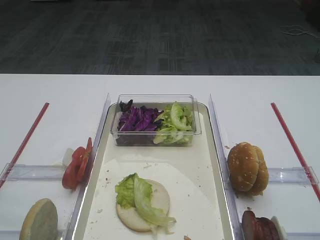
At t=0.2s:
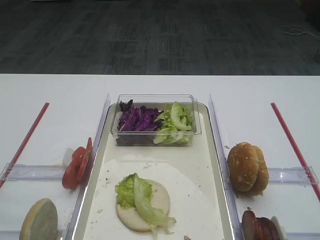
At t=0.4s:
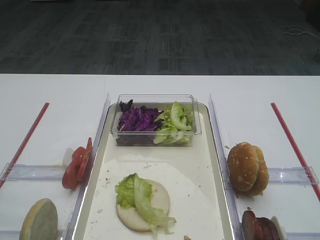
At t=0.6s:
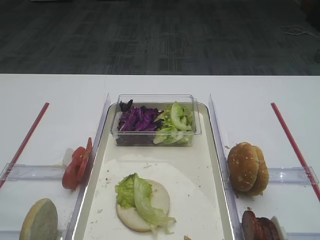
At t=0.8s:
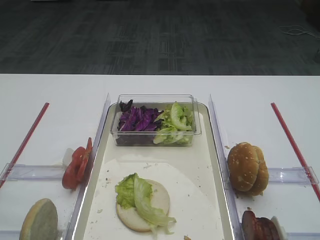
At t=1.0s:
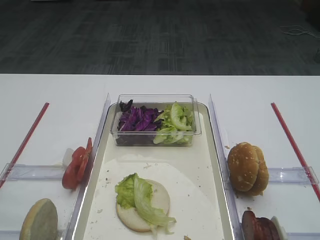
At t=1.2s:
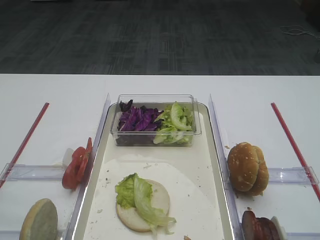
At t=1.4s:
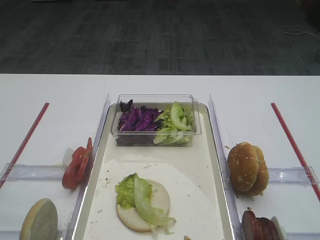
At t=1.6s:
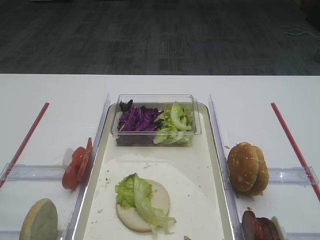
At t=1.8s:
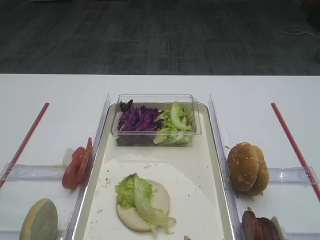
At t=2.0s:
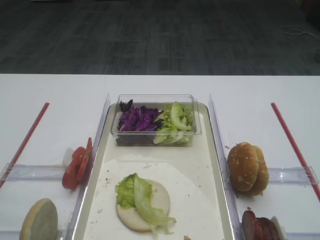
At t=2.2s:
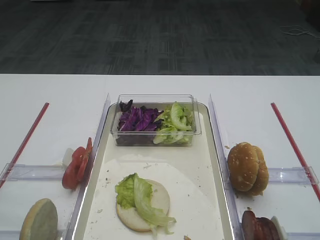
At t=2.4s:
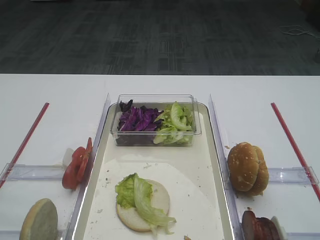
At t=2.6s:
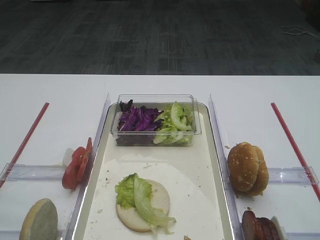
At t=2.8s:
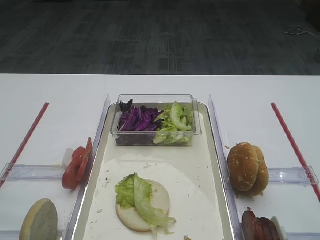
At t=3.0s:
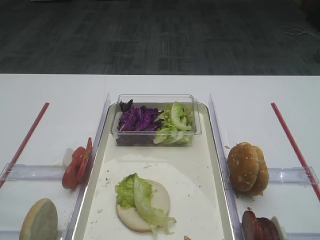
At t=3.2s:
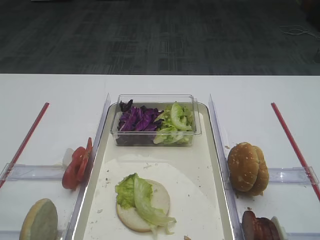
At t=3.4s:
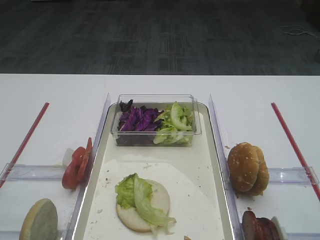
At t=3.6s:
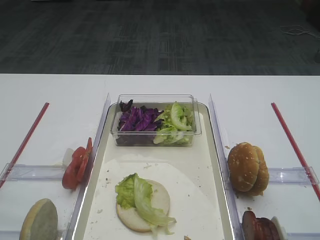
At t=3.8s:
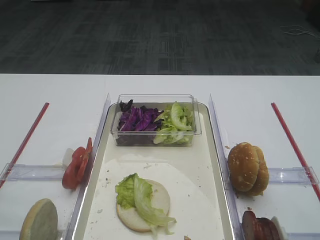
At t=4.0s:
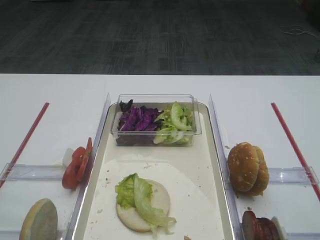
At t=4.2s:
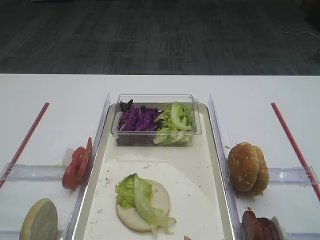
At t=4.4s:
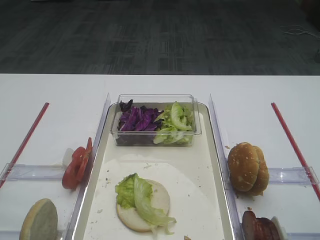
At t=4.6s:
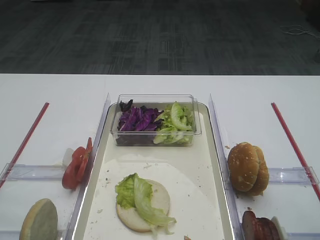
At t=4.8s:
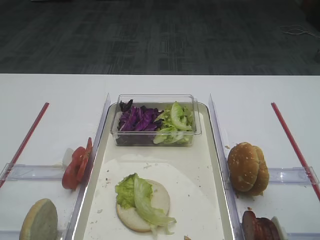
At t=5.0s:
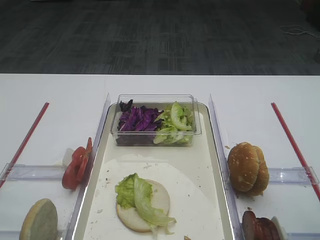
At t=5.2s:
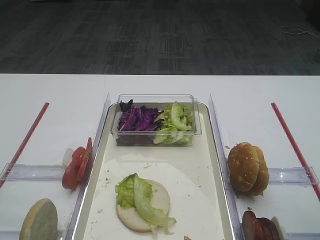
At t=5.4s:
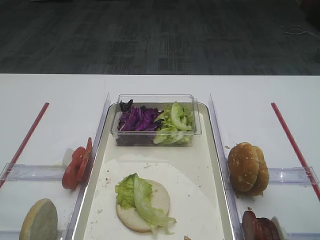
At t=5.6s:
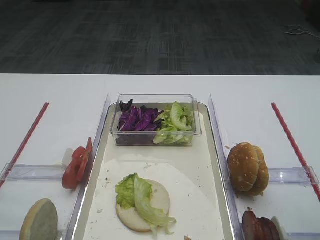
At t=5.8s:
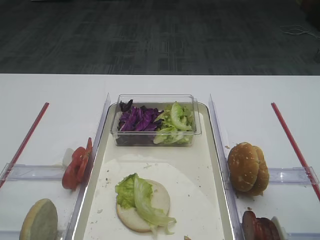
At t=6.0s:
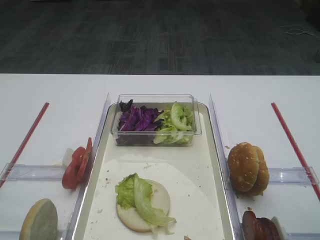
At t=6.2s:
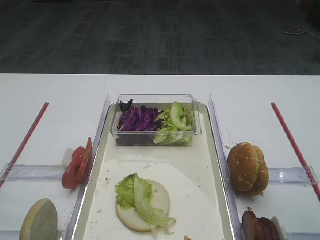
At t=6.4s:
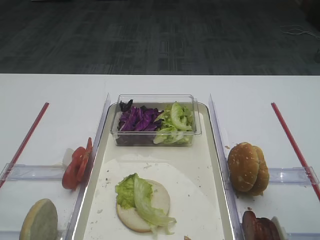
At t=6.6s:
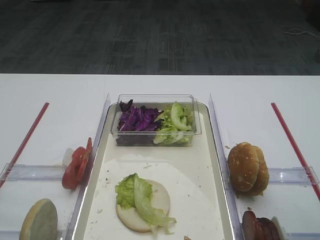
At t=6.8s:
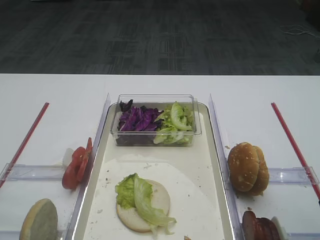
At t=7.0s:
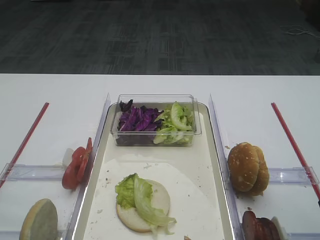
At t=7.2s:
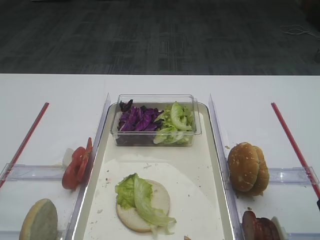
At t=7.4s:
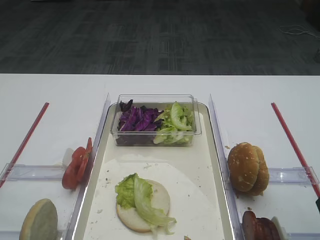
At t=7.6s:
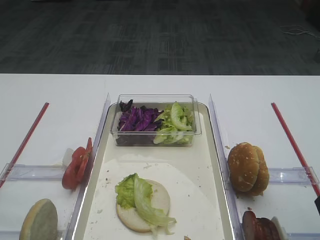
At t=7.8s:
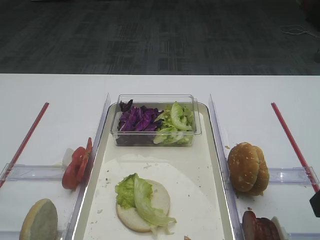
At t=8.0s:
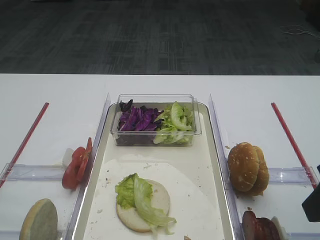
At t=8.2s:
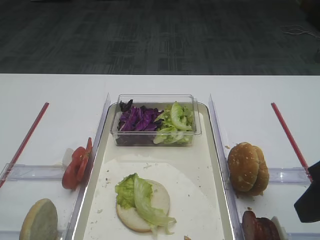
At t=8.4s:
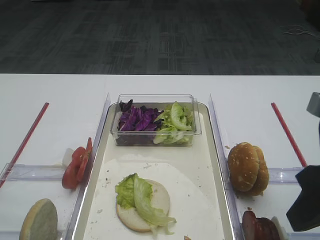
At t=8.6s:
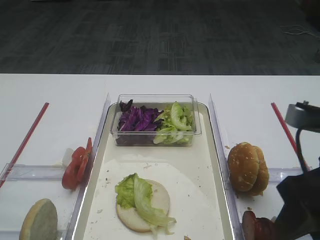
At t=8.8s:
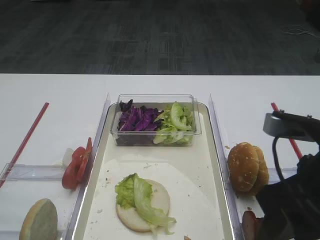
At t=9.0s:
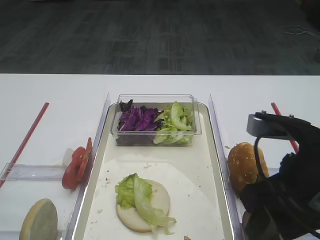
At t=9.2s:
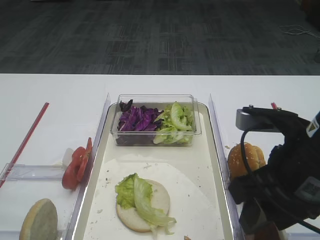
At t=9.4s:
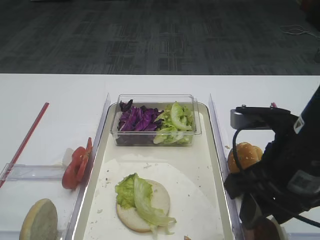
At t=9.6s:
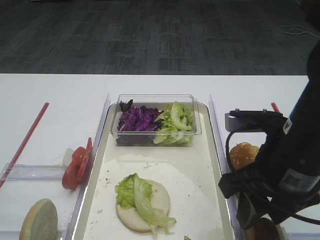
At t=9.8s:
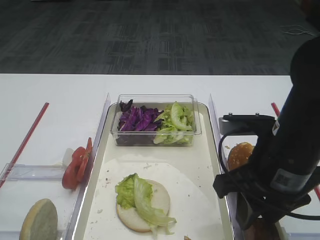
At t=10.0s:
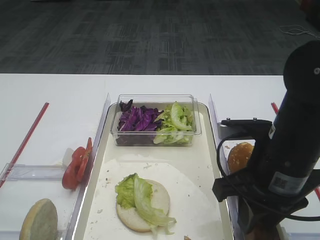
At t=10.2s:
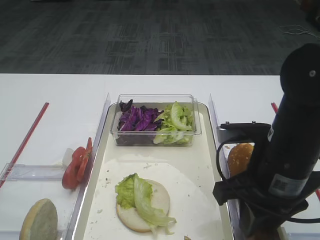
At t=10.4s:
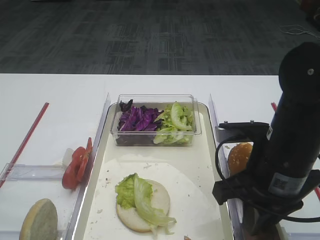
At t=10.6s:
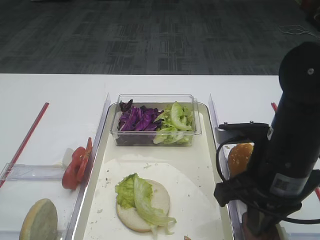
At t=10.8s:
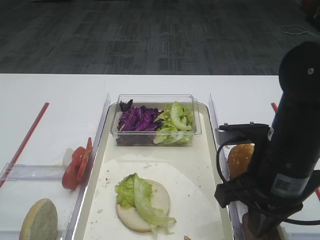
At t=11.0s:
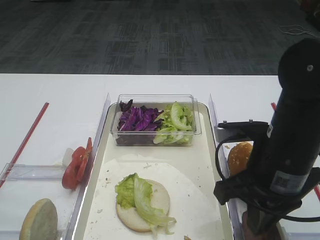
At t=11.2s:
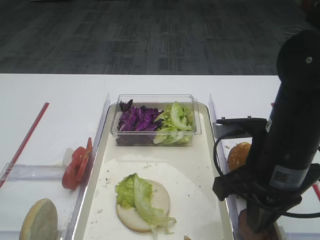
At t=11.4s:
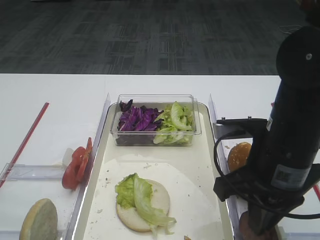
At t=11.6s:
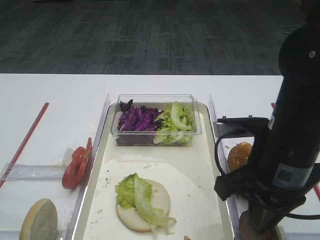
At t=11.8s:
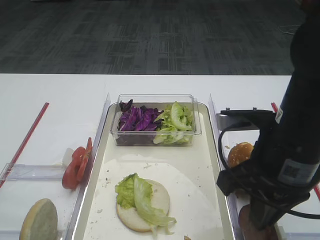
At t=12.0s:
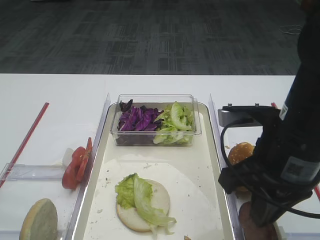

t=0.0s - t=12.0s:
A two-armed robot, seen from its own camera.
Step, t=0.0s - t=11.4s: Pick up the cutlet with the right gripper.
t=7.6s - t=9.0s: The right gripper moves to the left, some 10 cm.
t=9.0s - t=10.4s: The right gripper ends up some 5 cm from where it was, and closes.
t=10.4s - t=12.0s: The grippers move only a little.

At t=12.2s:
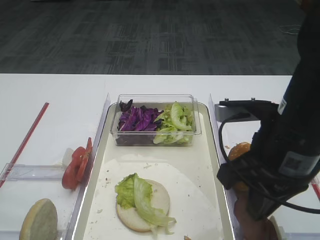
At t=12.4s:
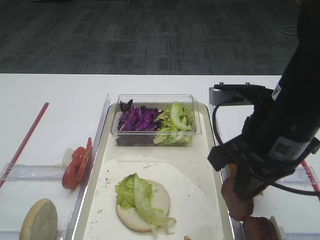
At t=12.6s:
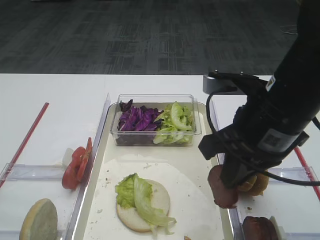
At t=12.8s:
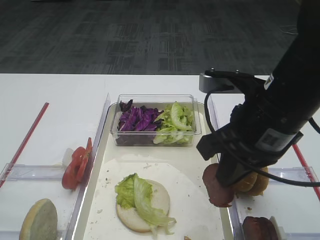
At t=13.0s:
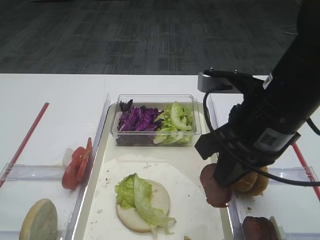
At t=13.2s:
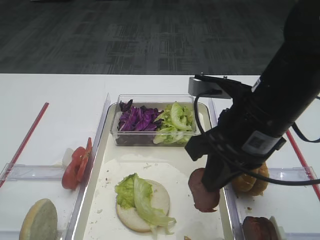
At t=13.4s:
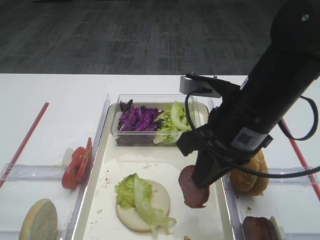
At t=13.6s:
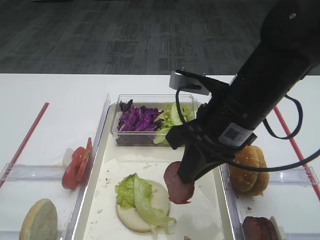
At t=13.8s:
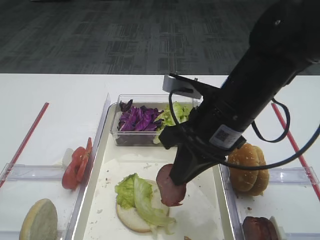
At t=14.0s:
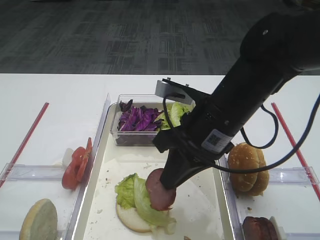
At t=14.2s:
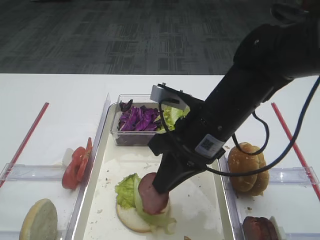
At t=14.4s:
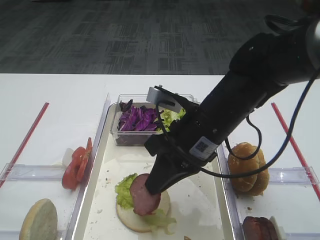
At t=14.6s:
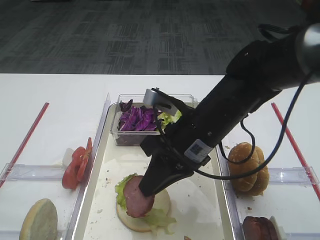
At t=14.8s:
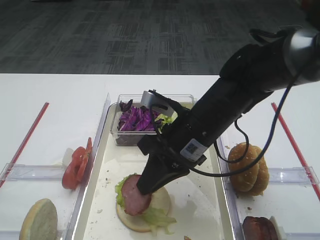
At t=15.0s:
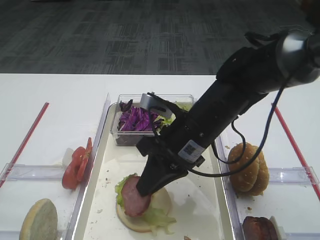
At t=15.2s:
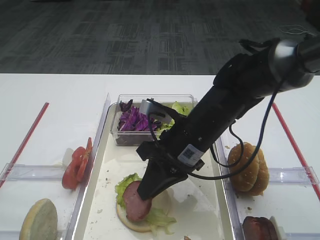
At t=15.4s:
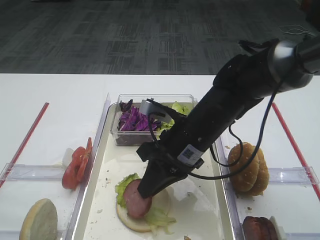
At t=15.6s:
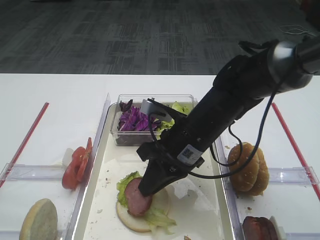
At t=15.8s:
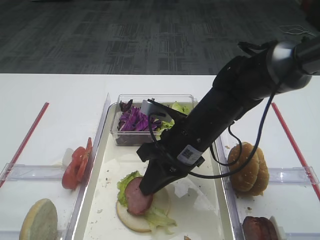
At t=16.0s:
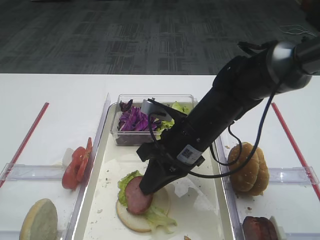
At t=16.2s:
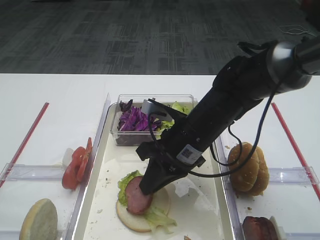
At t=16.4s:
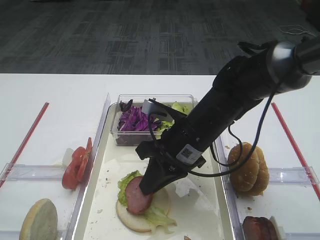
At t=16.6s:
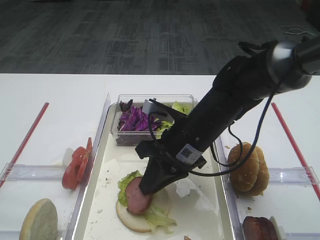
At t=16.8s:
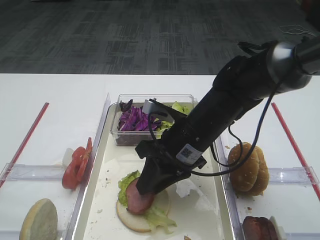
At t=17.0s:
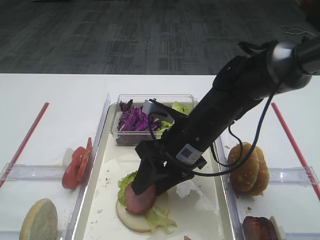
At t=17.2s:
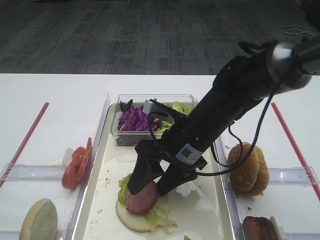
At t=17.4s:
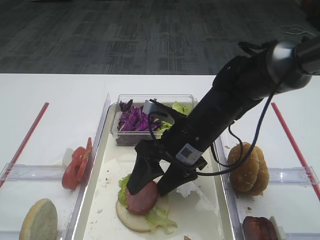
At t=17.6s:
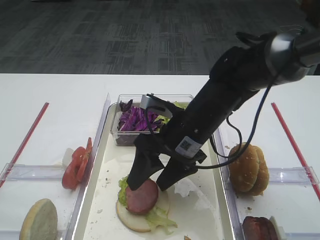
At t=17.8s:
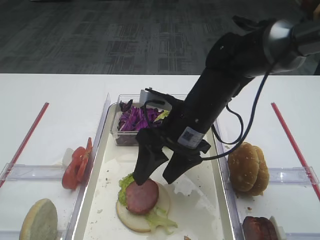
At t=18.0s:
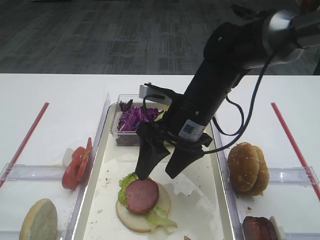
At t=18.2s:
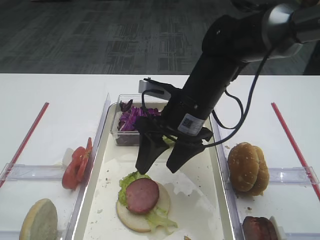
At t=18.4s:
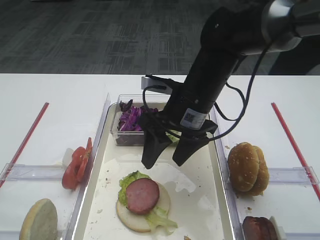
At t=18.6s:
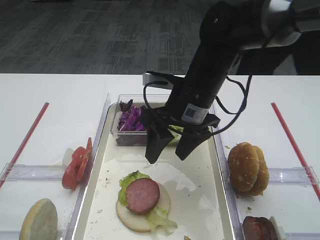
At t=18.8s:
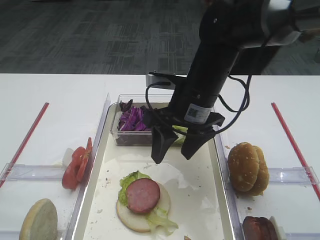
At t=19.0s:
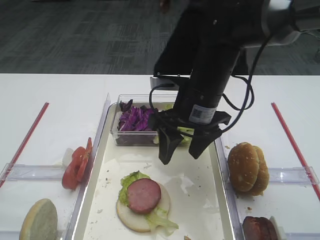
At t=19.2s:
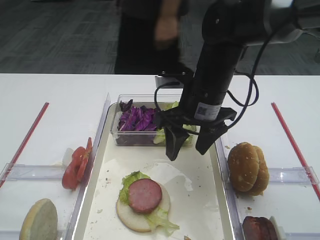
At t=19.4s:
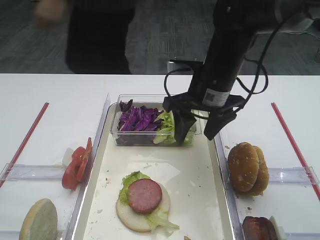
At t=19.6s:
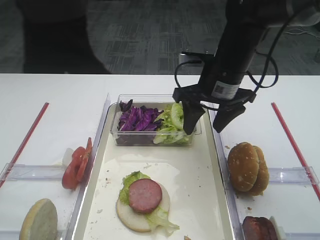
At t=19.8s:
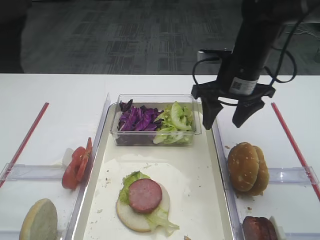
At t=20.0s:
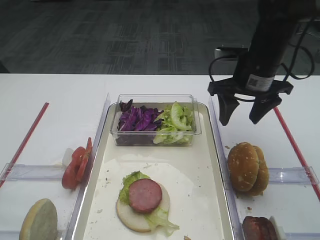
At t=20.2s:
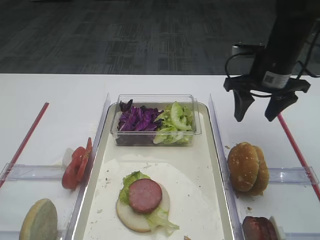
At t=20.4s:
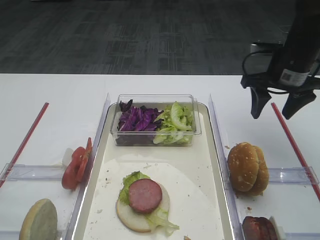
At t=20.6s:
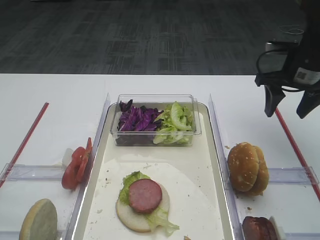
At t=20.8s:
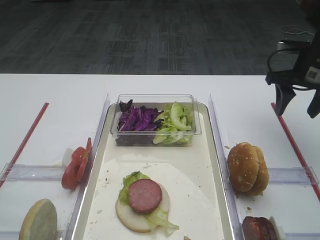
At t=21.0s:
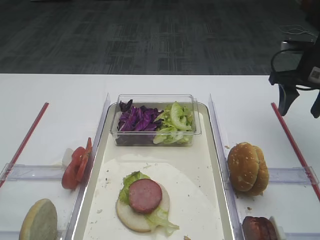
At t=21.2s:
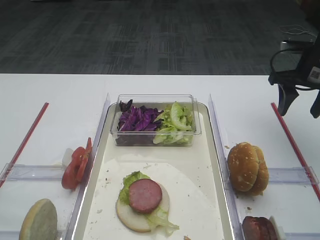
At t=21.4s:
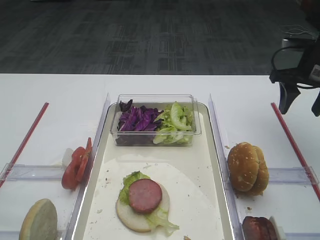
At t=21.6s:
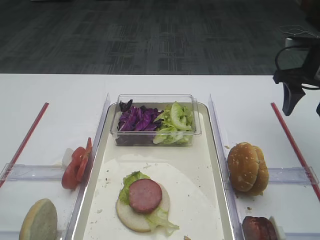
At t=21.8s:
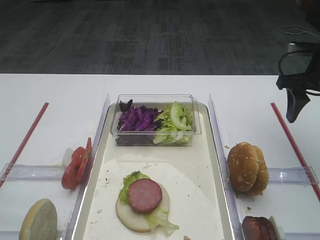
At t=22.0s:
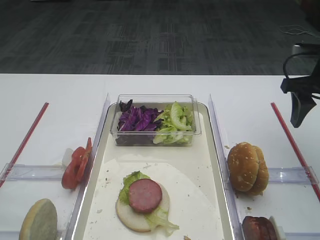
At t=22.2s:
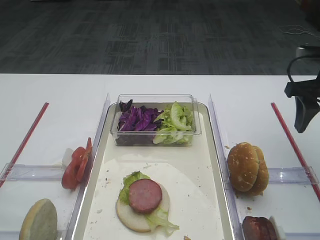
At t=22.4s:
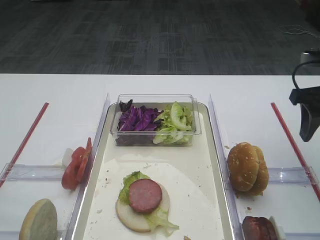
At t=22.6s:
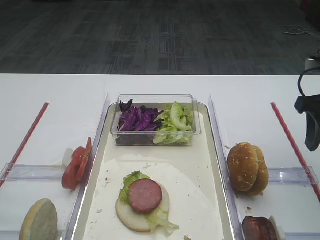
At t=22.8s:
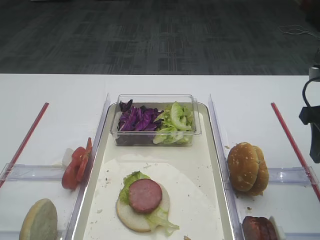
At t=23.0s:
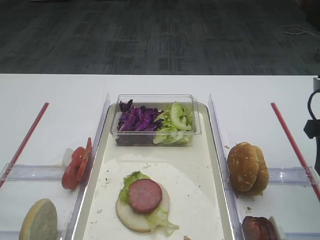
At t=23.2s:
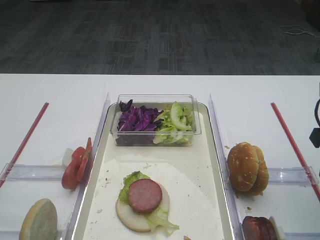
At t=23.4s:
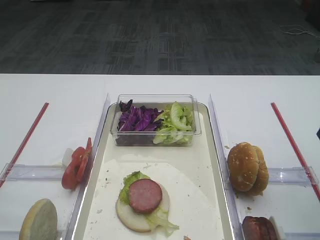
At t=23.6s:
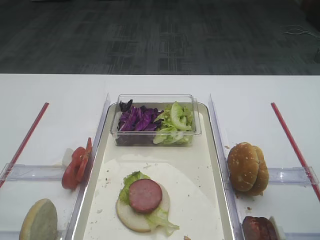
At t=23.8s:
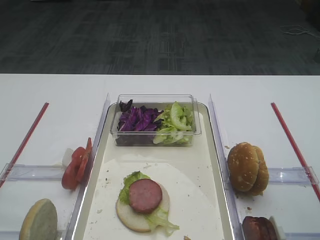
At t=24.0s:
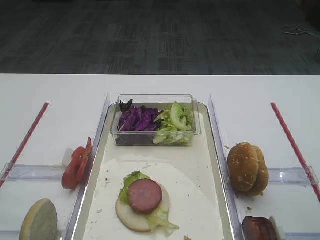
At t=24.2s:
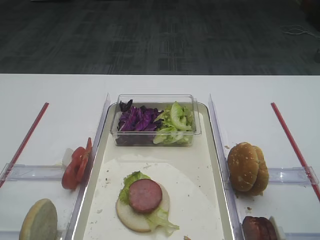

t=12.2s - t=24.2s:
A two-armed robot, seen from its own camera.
Step, t=12.2s - t=18.4s: Place the cutlet on the lettuce leaf with the right gripper.
t=12.2s - t=13.8s: The right gripper moves to the left and forward, roughly 10 cm.
t=13.8s - t=15.2s: The right gripper moves downward, about 5 cm.
t=15.2s - t=16.6s: The grippers move only a little.
t=16.6s - t=18.2s: The right gripper opens.
t=18.2s - t=19.8s: The right gripper shifts approximately 10 cm to the right and forward.
t=19.8s - t=21.2s: The right gripper goes some 15 cm to the right.
t=21.2s - t=22.6s: The right gripper moves backward, some 10 cm.
t=22.6s - t=24.2s: The right gripper goes approximately 15 cm backward and upward.
